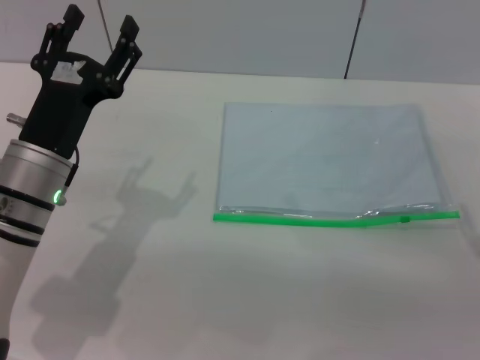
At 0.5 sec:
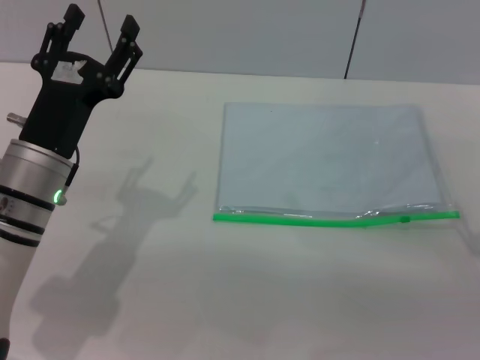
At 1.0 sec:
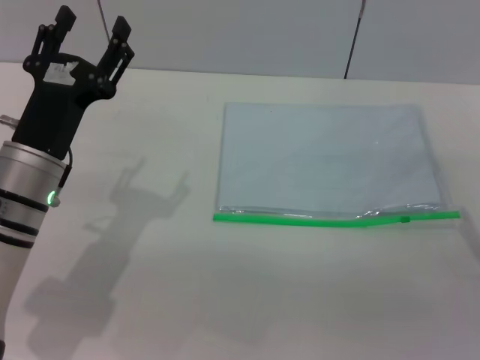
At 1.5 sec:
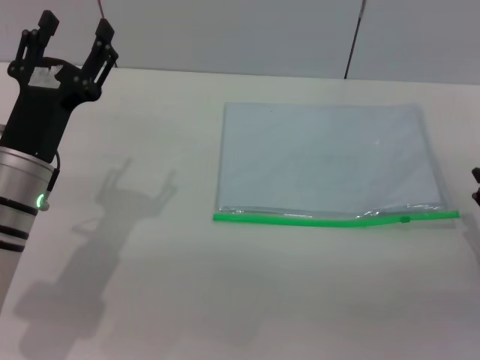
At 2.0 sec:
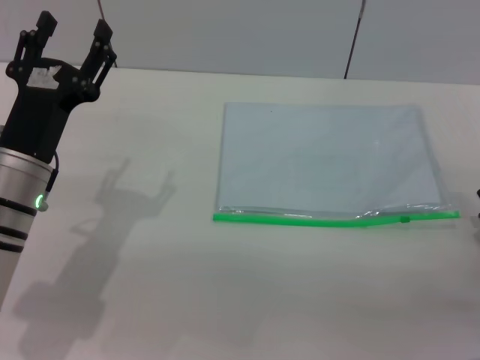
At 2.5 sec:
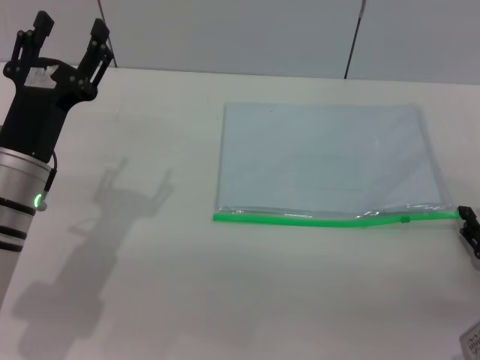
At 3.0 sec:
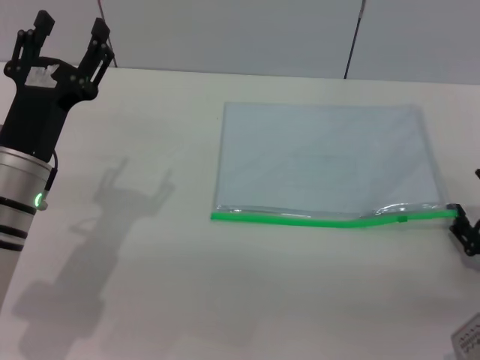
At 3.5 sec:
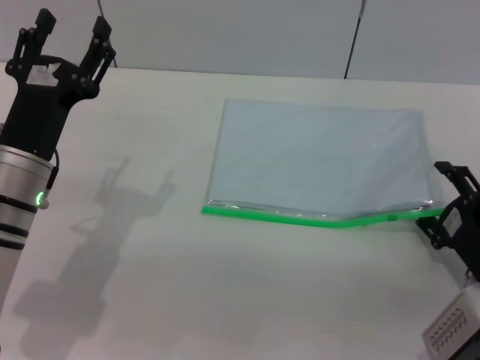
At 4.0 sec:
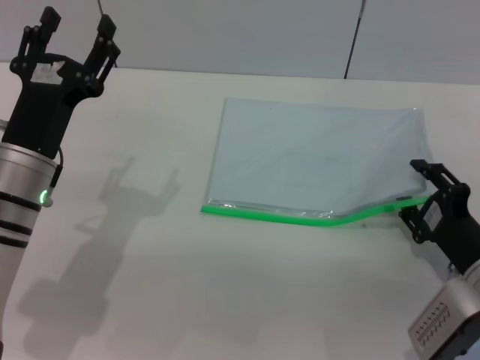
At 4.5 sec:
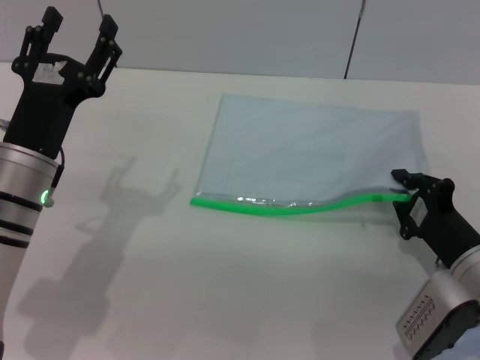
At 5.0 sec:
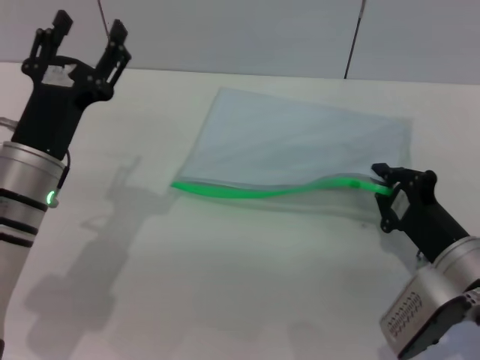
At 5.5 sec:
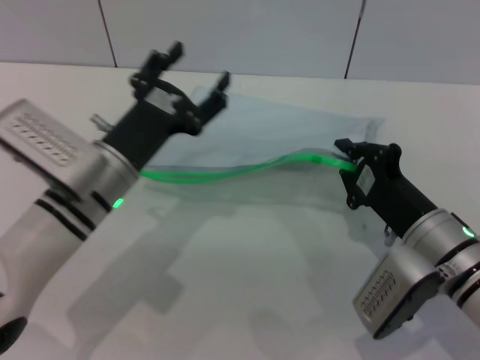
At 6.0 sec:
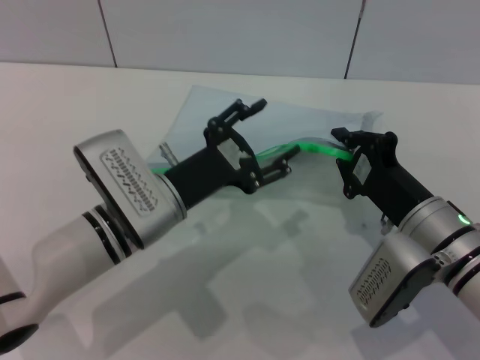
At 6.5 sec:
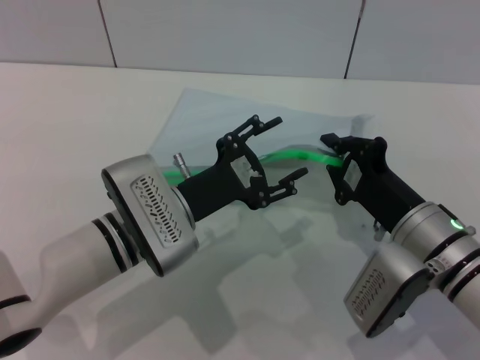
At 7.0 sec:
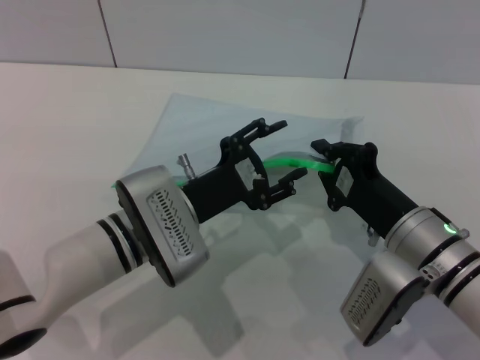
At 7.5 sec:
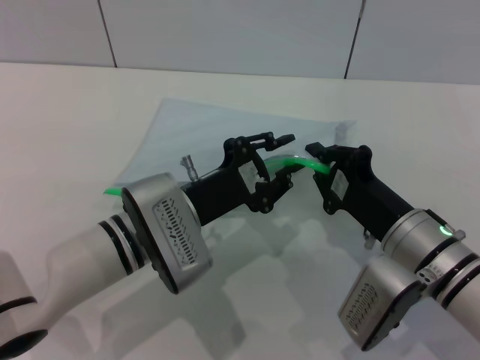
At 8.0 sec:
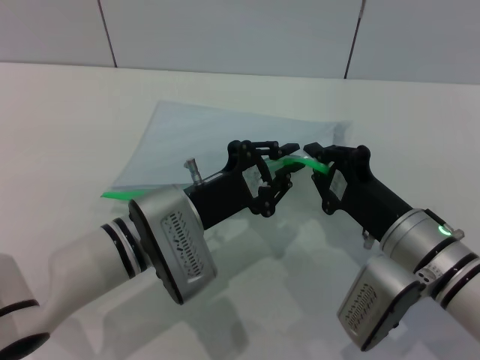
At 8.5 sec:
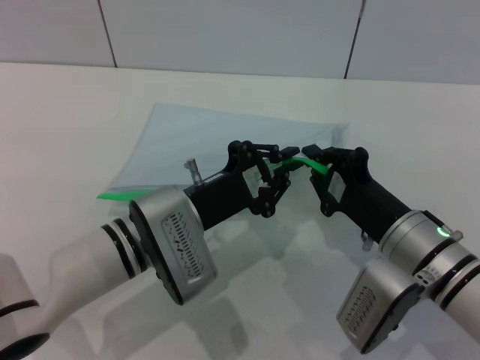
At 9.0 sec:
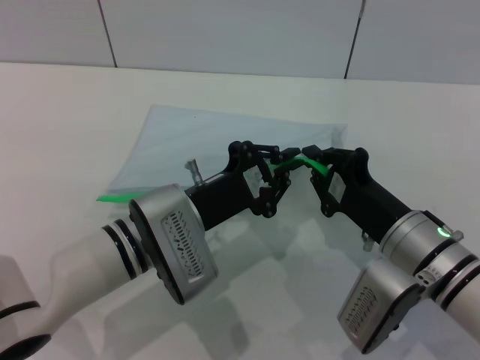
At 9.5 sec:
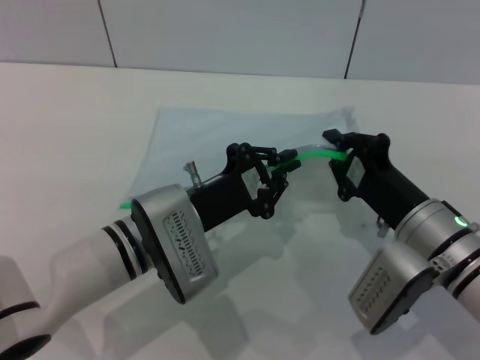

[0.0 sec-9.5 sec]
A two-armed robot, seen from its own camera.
Step, 0.0 sec to 4.5 sec: Pick up the transparent plastic bag with the right gripper.
2.0 sec to 4.0 sec: The right gripper heads to the left, covering some 5 cm.
4.0 sec to 5.5 sec: The left gripper shifts roughly 5 cm to the right, while the right gripper shifts about 5 cm to the left, and closes.
5.5 sec to 7.5 sec: The left gripper goes about 5 cm to the right.
7.5 sec to 9.5 sec: The left gripper closes its fingers.

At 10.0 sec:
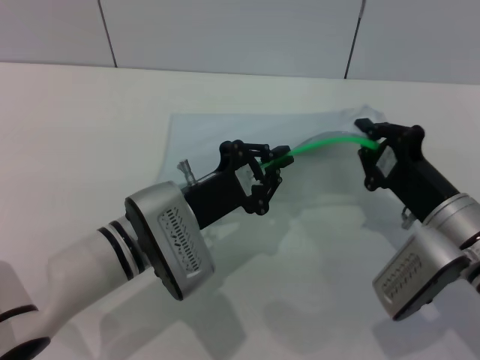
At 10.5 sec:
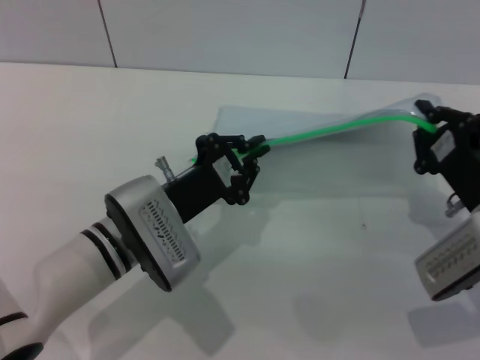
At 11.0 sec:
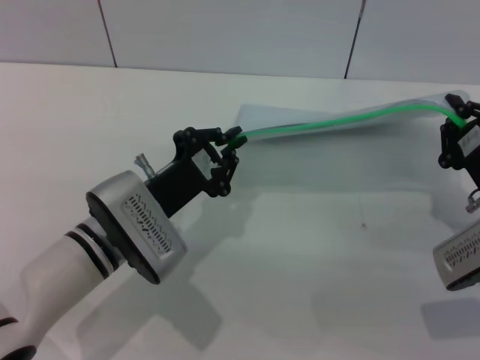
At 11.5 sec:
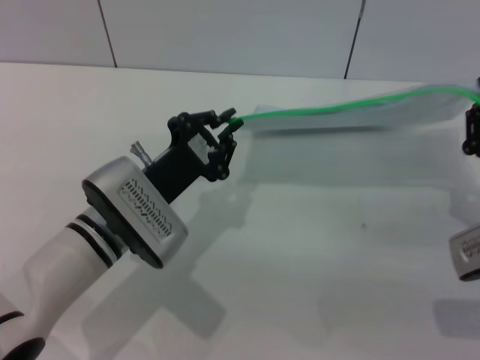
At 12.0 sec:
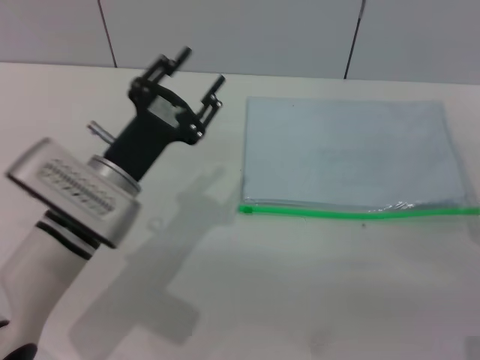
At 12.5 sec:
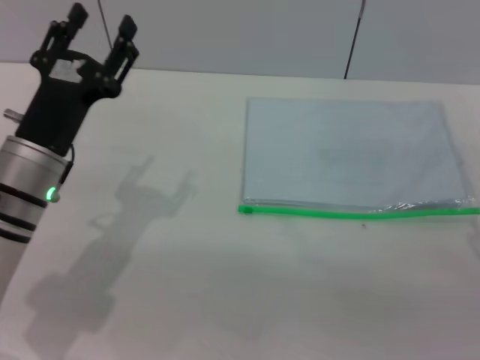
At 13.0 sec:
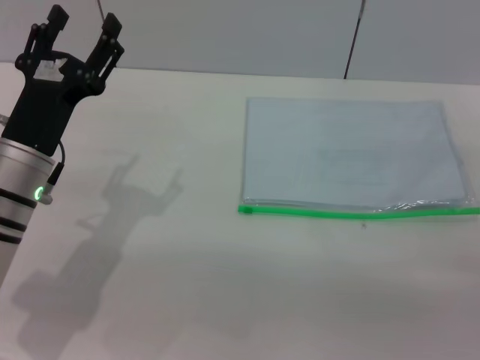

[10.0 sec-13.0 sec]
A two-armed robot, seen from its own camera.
Step, 12.0 sec to 12.5 sec: Place the transparent plastic bag.
10.0 sec to 11.5 sec: The right gripper goes roughly 5 cm to the right.
11.5 sec to 13.0 sec: The left gripper moves to the left, roughly 10 cm, and opens up; the right gripper changes place by roughly 5 cm, and opens.
